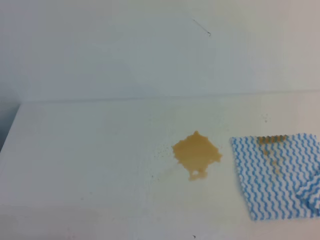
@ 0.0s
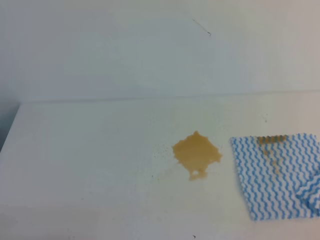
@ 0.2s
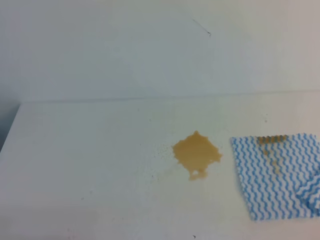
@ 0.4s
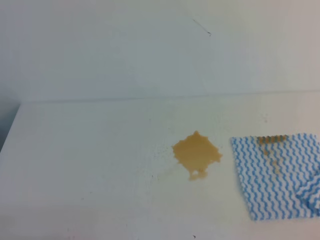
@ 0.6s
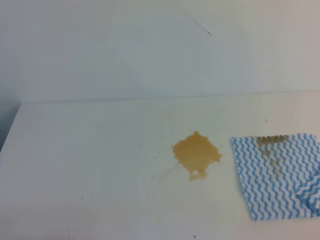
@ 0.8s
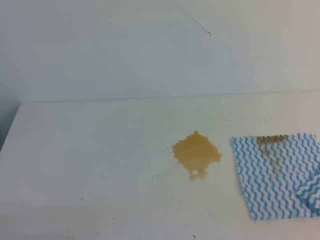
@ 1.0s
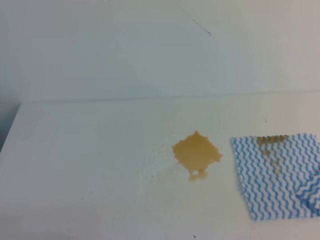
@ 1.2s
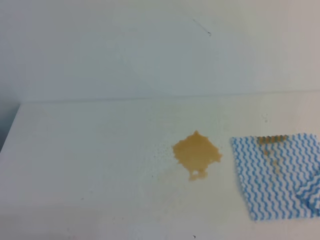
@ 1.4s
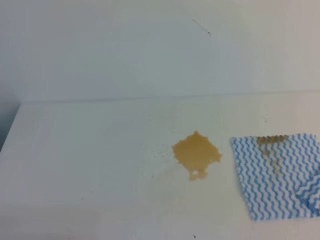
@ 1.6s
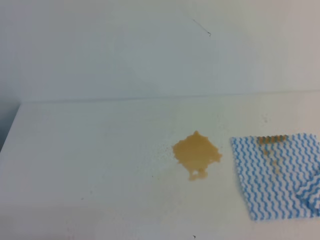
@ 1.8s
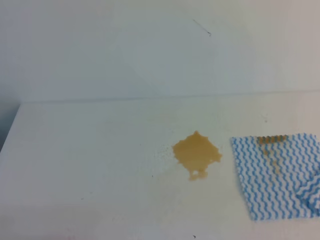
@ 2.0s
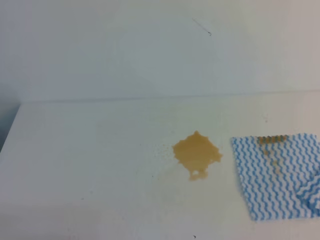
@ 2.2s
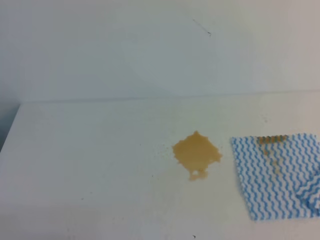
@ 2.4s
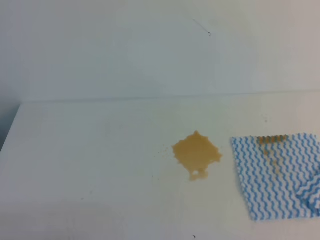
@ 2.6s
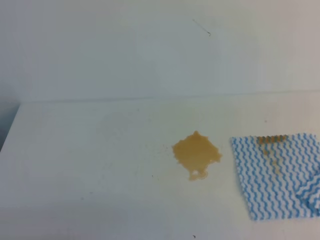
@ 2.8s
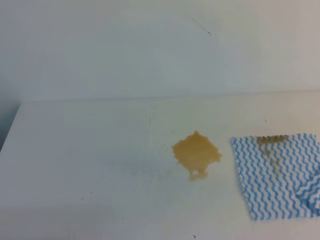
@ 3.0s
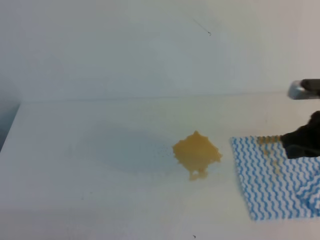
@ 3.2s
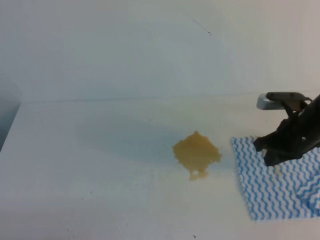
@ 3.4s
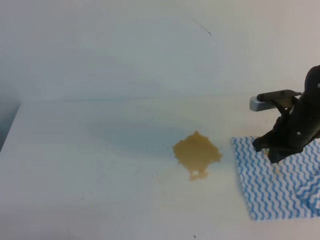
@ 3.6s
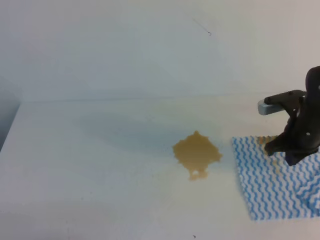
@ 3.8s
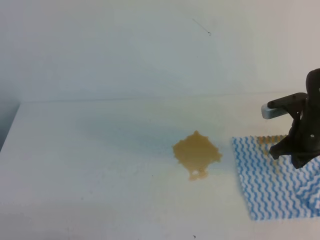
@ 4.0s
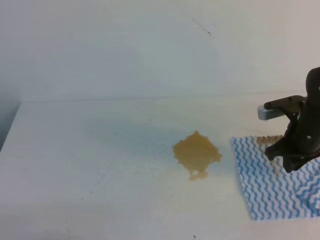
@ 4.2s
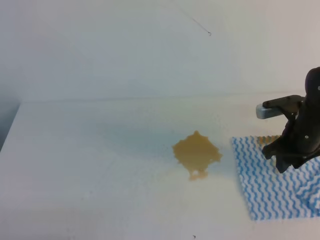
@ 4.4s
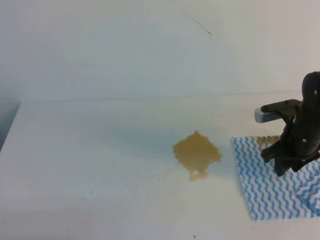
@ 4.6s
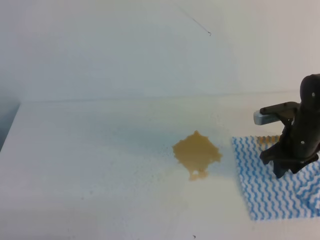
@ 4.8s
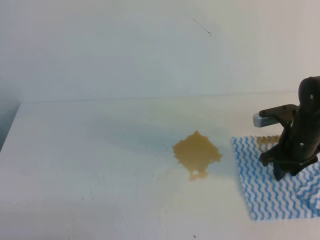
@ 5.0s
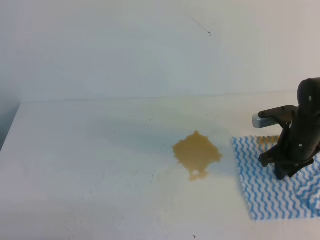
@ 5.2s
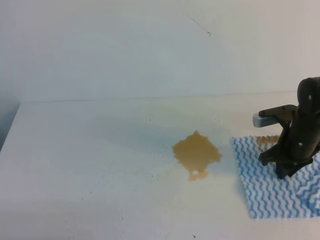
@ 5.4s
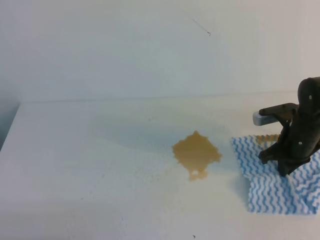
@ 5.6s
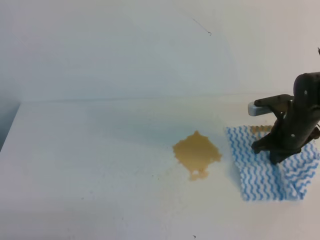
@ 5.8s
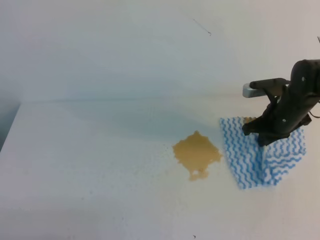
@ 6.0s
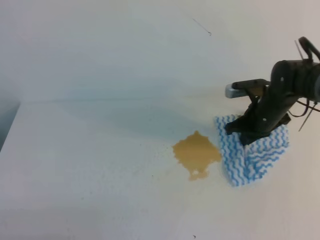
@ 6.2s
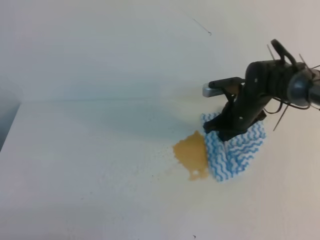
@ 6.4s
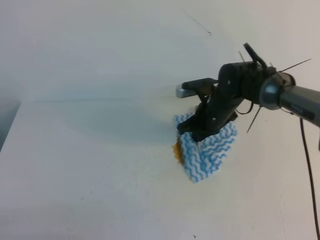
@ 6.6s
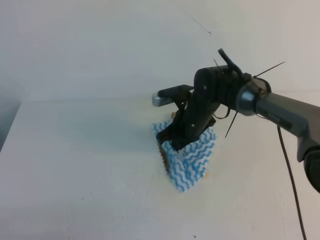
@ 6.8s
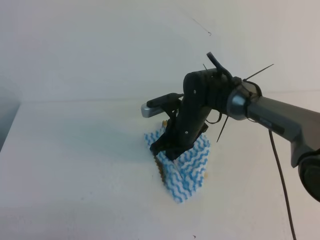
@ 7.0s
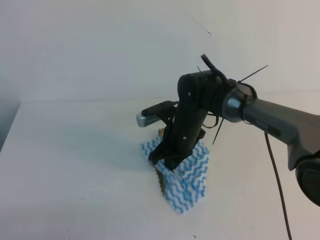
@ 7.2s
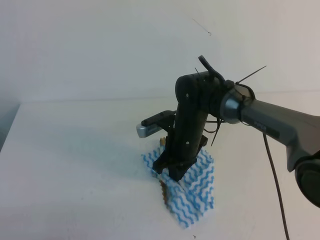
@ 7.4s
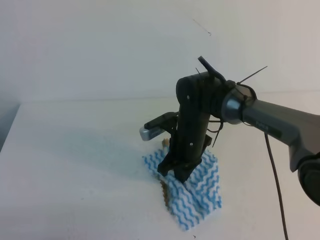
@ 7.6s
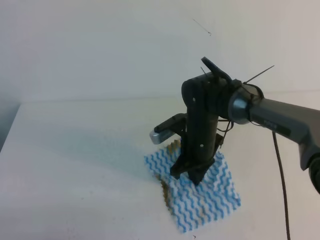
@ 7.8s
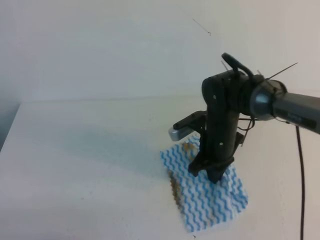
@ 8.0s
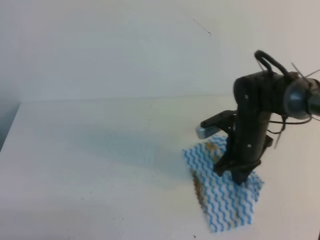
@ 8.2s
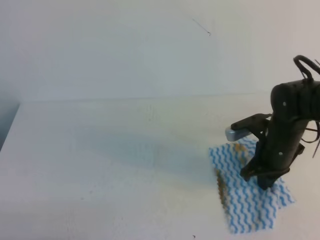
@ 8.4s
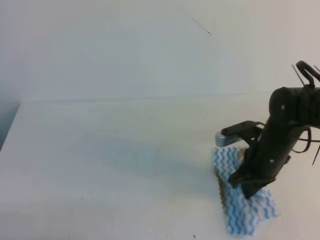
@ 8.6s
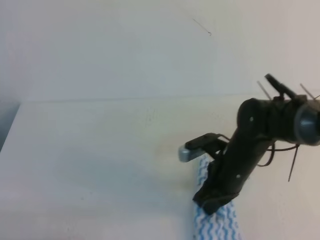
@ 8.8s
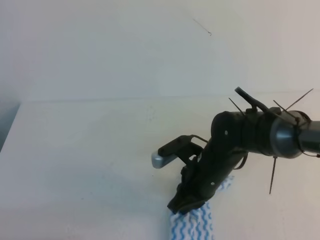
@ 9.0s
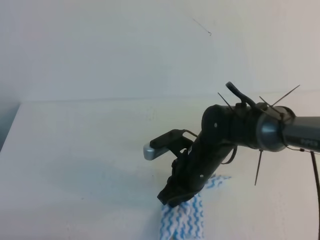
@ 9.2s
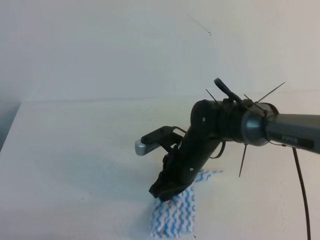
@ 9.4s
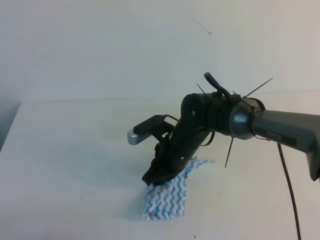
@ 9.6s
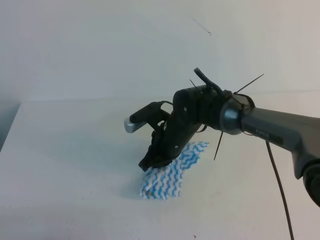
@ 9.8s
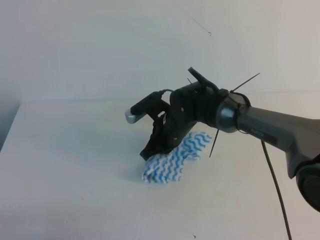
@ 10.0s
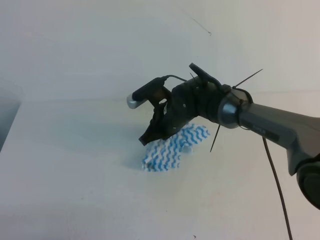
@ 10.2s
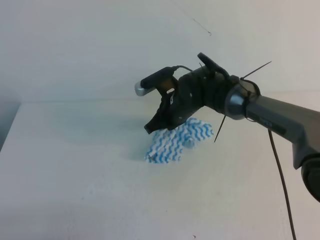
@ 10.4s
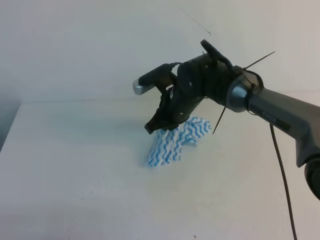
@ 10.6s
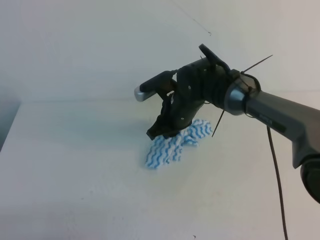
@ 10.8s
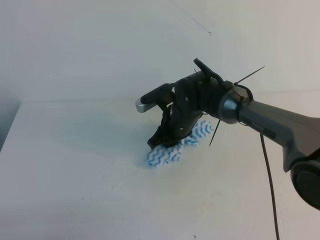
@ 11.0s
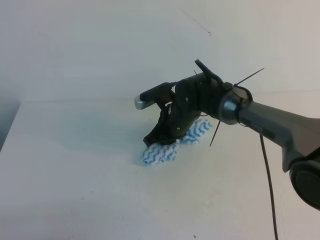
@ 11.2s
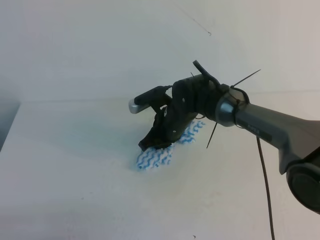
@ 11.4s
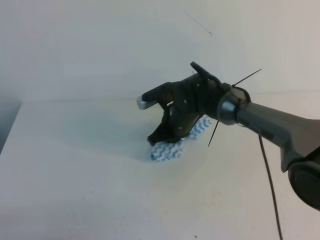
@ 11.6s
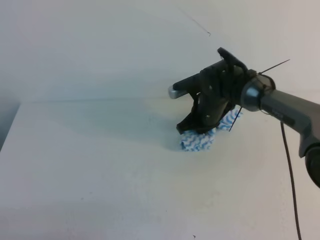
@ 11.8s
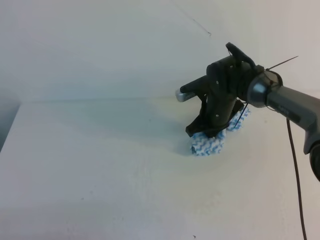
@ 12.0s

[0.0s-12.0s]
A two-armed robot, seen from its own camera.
3.0s to 4.4s: The right gripper moves forward, downward and to the left, about 20 cm, and opens up.
4.4s to 6.0s: The right gripper ends up roughly 5 cm from where it was, and closes.
6.0s to 7.6s: The right gripper travels to the left by some 20 cm.
7.6s to 9.0s: The right gripper moves backward, approximately 10 cm, and goes to the right and returns, roughly 15 cm each way.
9.0s to 10.4s: The right gripper shifts approximately 15 cm forward and to the left.
10.4s to 12.0s: The right gripper is displaced to the right by about 5 cm, and opens, then closes again.

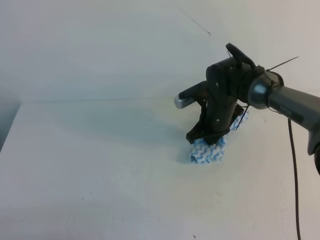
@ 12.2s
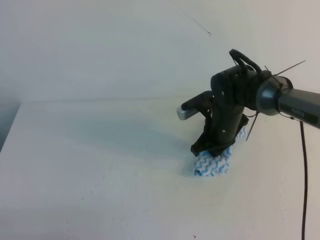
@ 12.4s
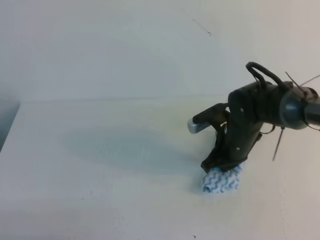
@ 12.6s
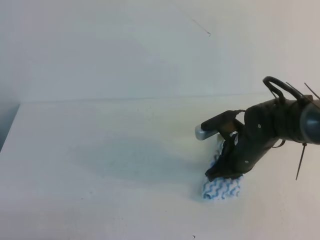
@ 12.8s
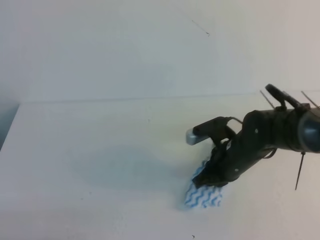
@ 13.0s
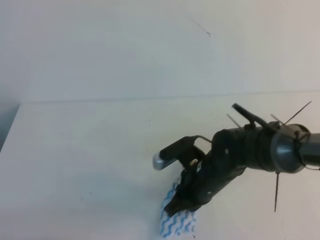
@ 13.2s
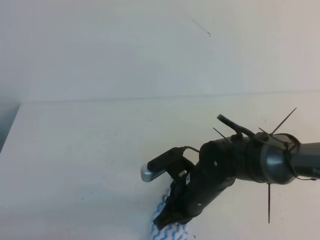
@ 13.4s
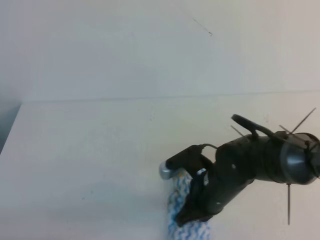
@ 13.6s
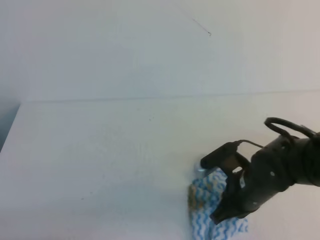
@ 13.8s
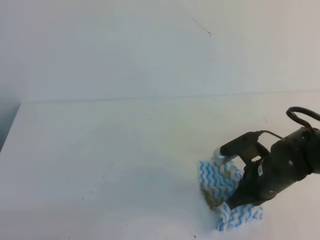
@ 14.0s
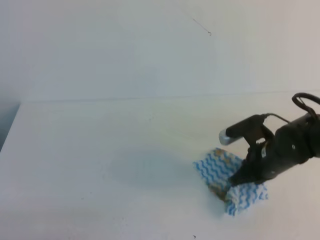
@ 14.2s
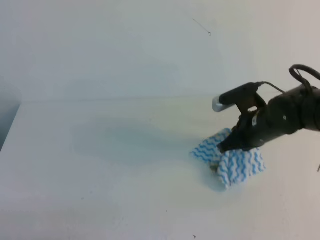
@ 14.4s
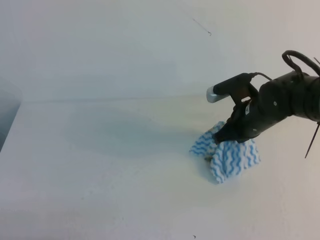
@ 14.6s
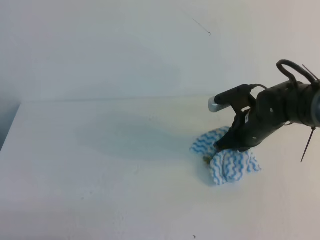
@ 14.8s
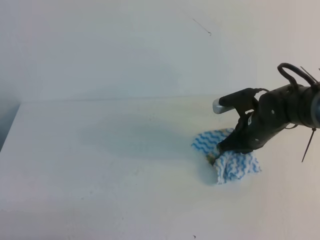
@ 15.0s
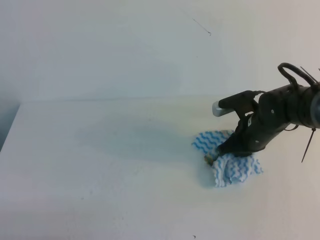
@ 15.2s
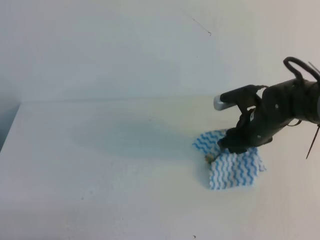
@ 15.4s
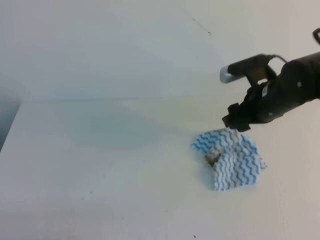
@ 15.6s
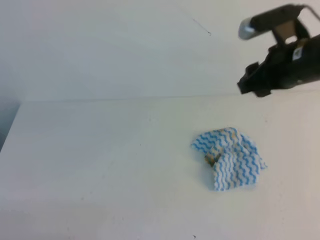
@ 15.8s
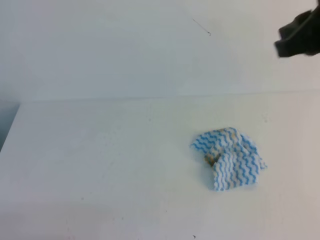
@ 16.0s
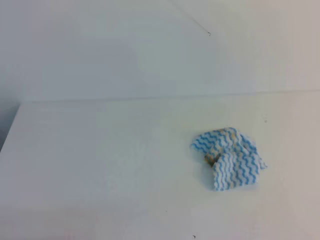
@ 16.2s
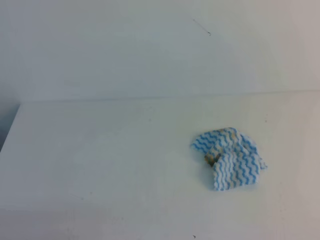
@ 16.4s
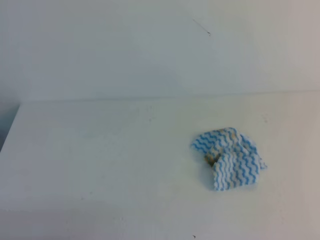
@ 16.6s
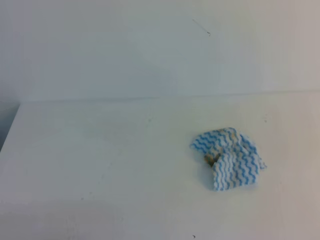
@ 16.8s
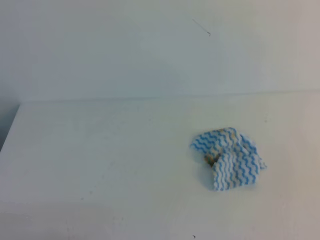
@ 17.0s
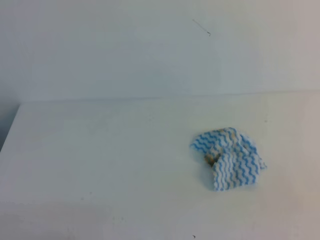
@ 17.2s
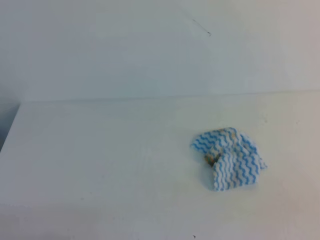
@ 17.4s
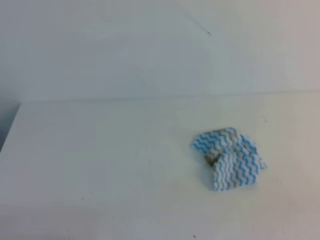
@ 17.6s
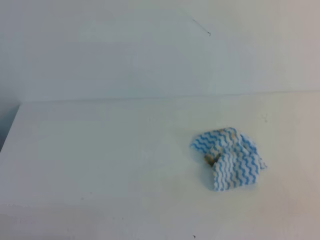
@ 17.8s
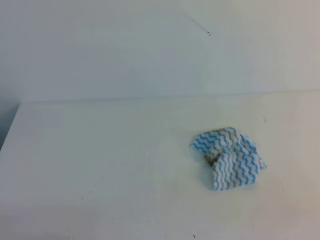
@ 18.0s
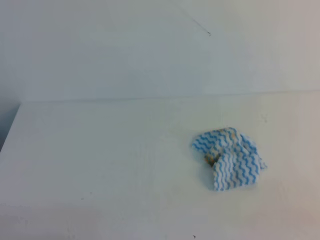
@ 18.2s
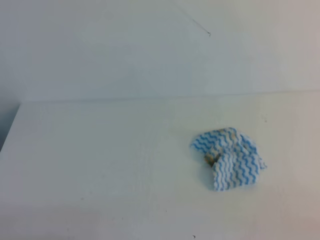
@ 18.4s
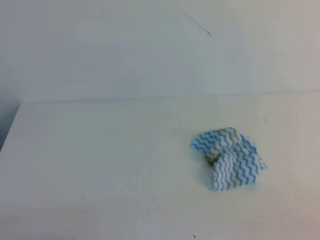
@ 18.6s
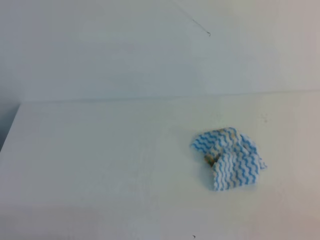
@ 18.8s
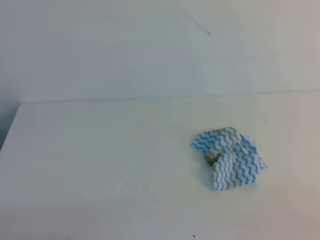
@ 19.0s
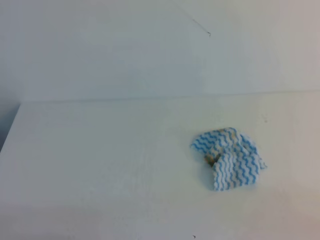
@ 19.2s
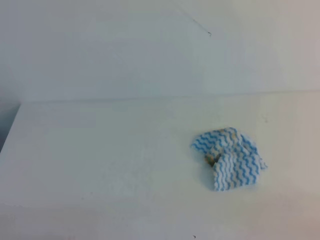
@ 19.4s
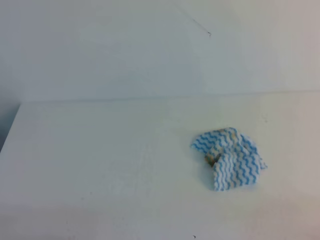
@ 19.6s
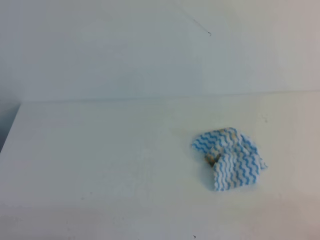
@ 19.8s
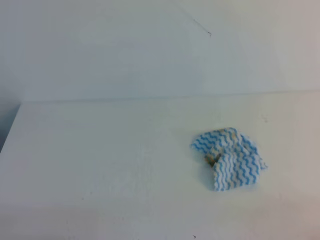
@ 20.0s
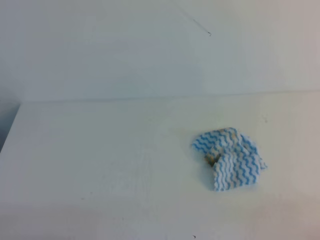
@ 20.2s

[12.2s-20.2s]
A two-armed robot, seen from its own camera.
12.2s to 13.8s: The right gripper is displaced backward by some 15 cm.
13.8s to 15.4s: The right gripper goes approximately 10 cm forward and upward, and opens.
15.4s to 17.0s: The right gripper is displaced backward, to the right and upward by about 40 cm, and closes.

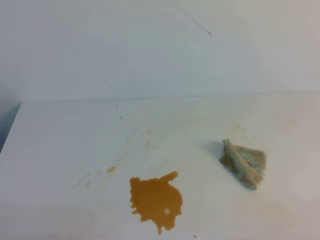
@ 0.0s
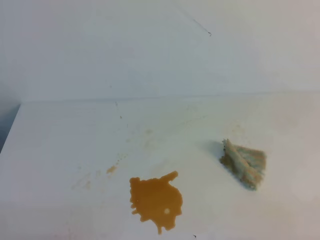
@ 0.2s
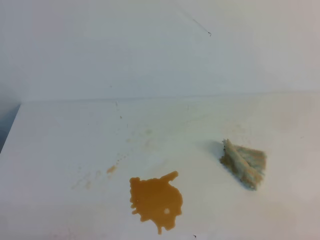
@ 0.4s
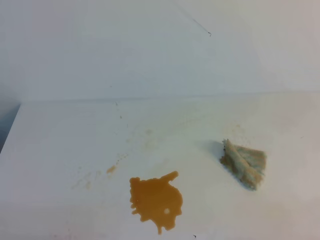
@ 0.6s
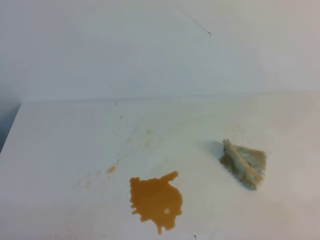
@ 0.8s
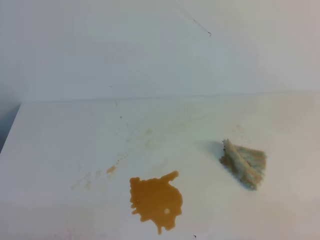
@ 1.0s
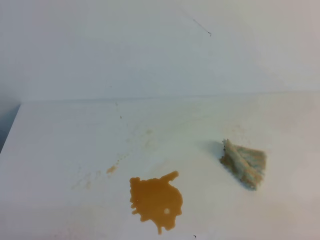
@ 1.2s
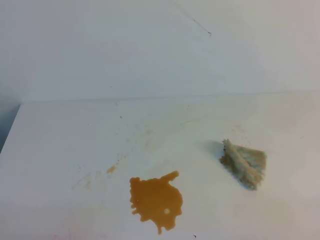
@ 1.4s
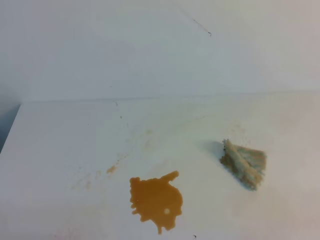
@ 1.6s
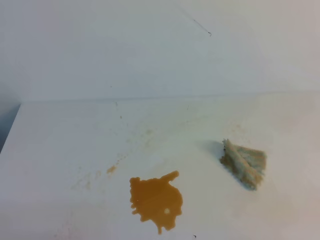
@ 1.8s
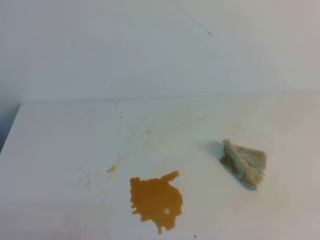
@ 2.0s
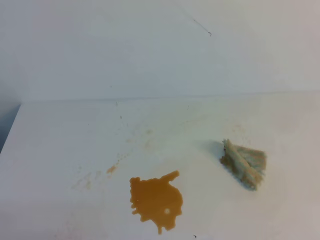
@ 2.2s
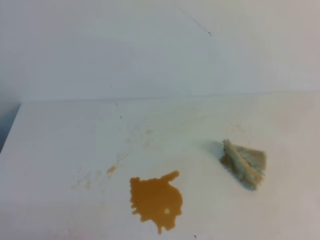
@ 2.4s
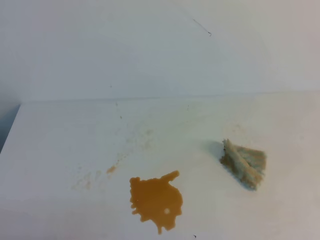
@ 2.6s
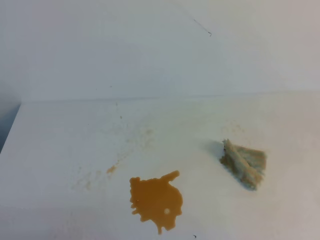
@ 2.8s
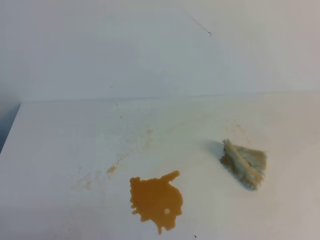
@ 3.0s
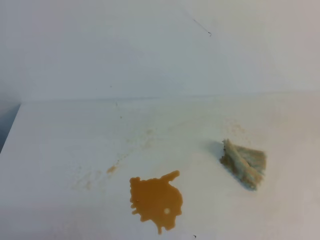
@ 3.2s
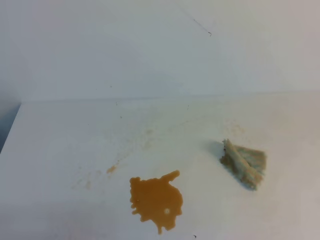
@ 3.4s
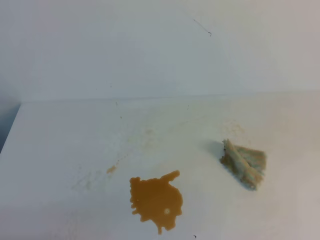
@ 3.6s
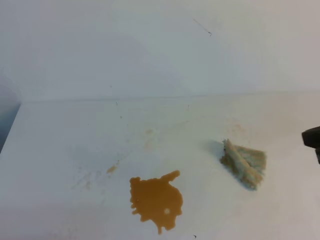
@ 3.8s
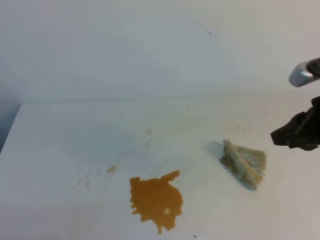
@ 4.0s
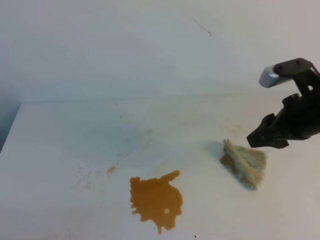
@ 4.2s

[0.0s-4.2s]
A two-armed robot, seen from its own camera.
0.0s to 1.4s: Both grippers stay put.
2.8s to 4.2s: The right gripper is displaced forward and to the left by roughly 25 cm, and opens its fingers.
